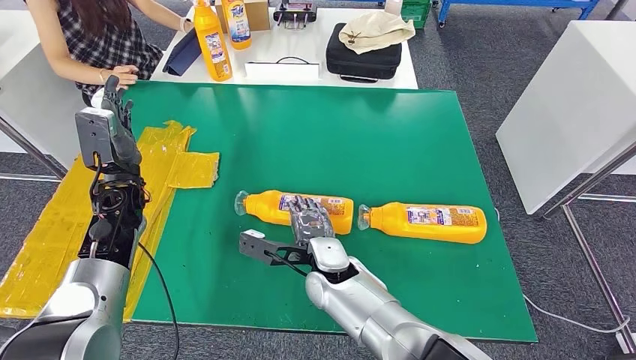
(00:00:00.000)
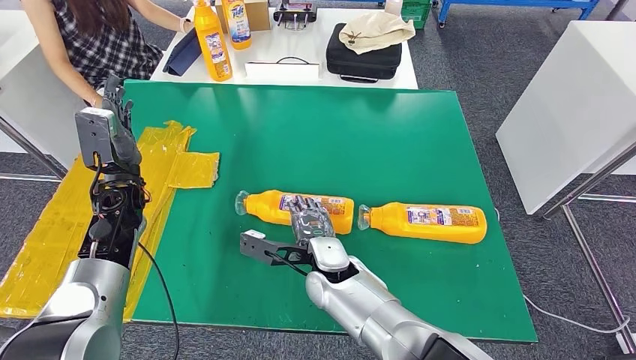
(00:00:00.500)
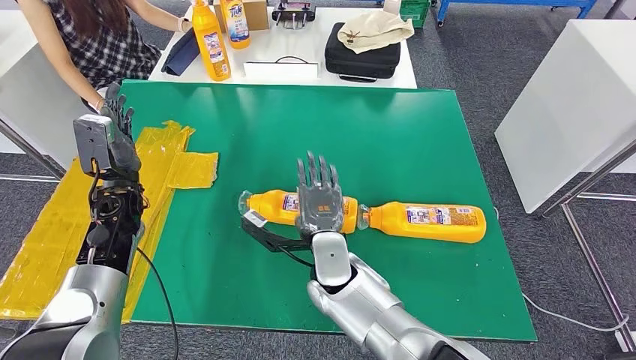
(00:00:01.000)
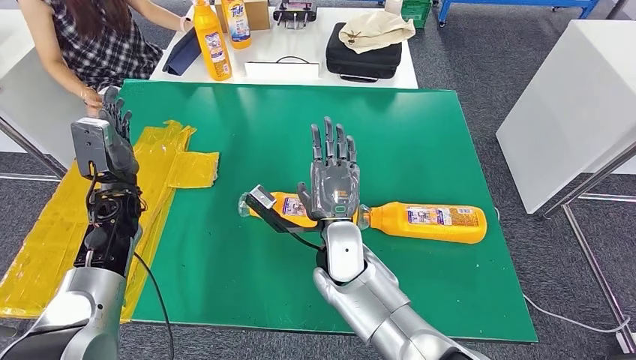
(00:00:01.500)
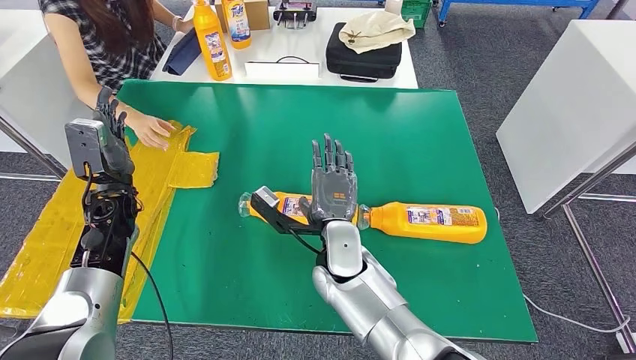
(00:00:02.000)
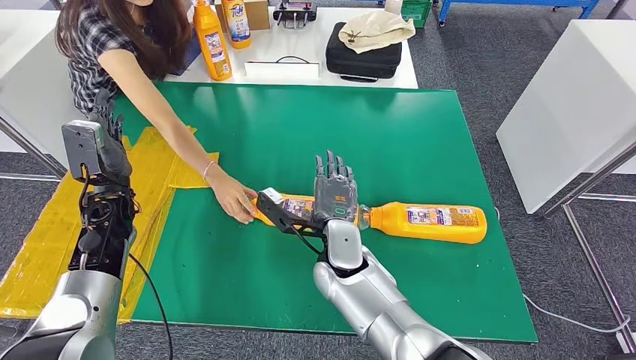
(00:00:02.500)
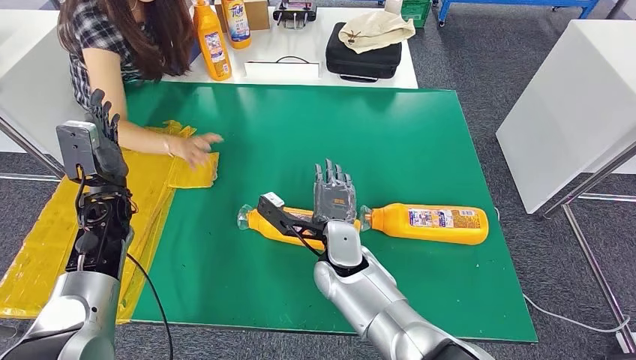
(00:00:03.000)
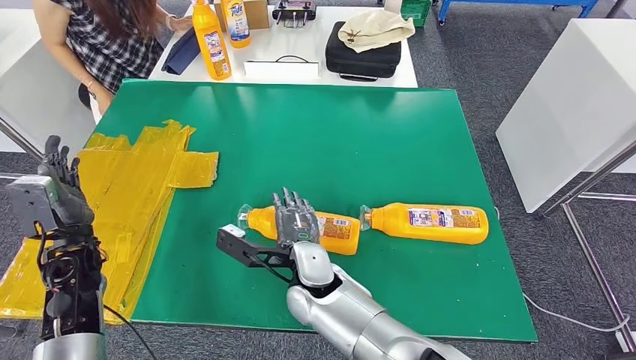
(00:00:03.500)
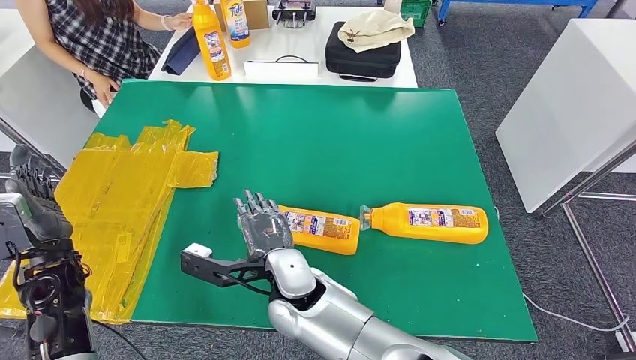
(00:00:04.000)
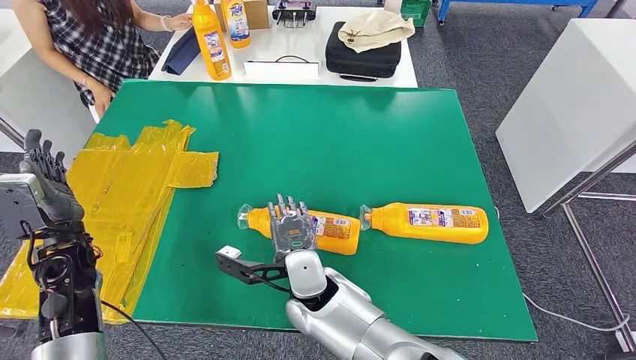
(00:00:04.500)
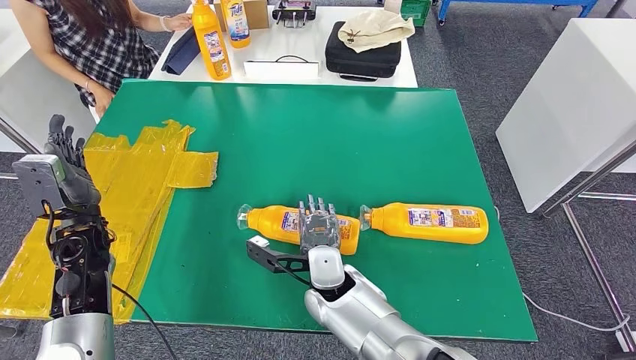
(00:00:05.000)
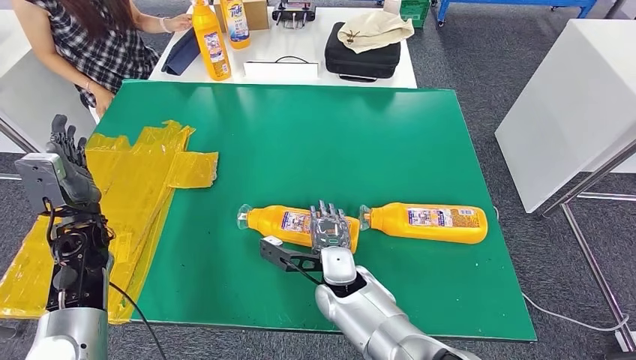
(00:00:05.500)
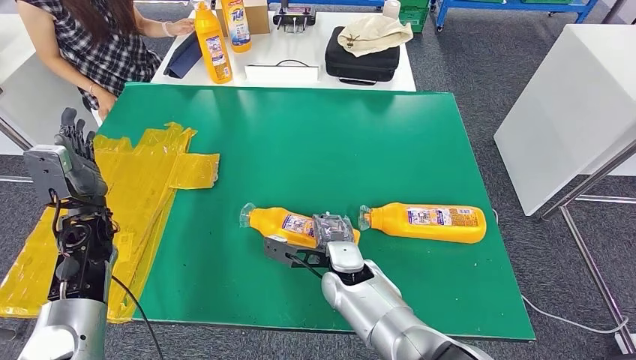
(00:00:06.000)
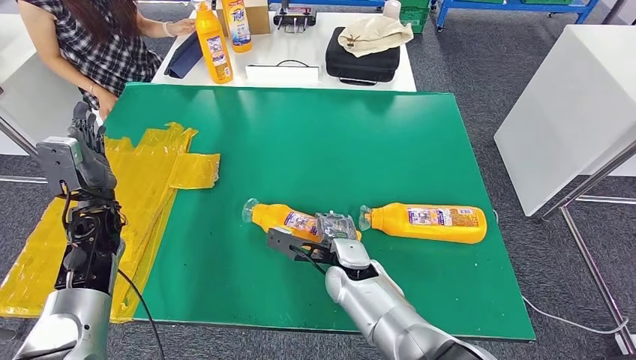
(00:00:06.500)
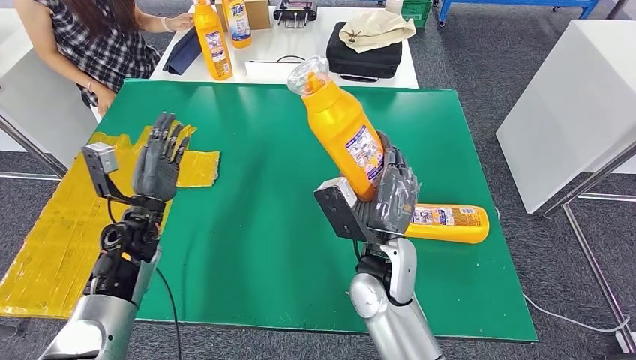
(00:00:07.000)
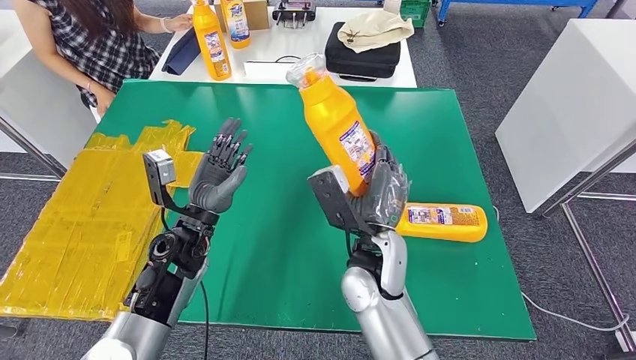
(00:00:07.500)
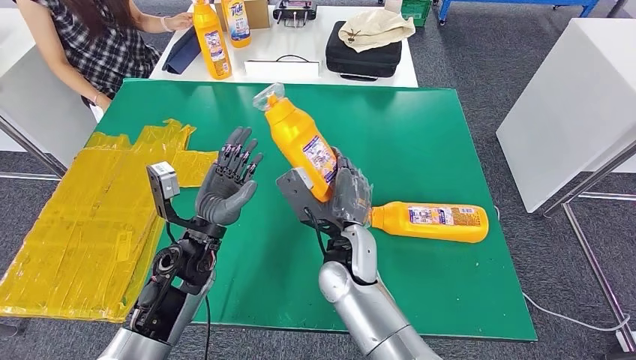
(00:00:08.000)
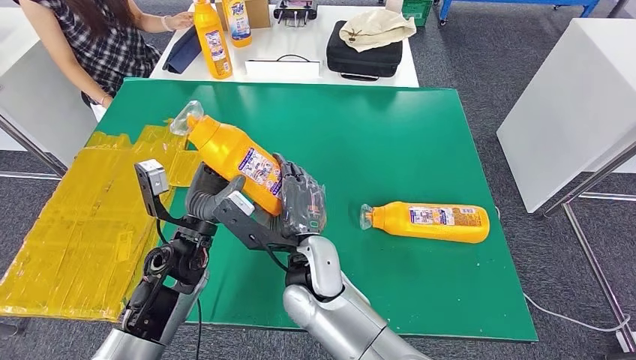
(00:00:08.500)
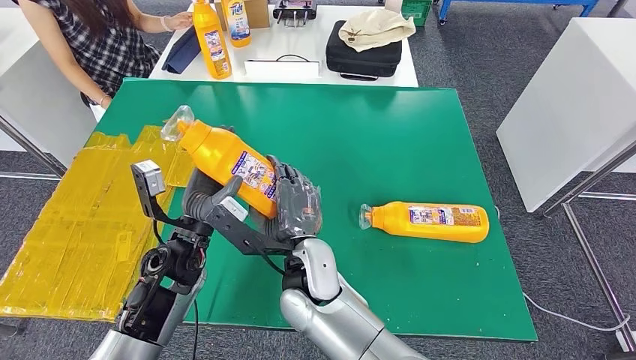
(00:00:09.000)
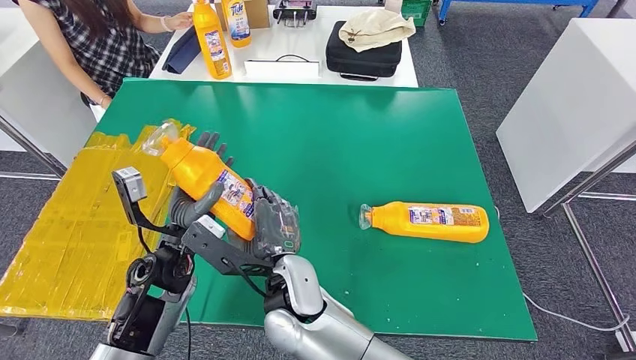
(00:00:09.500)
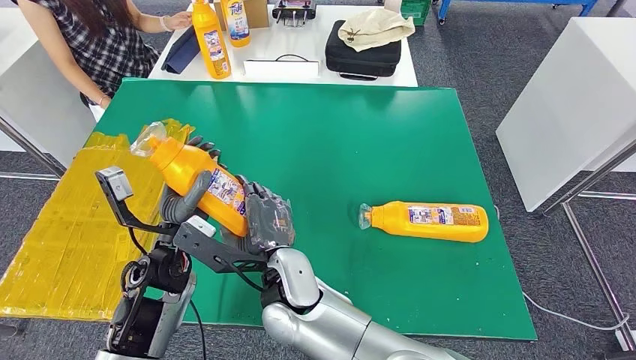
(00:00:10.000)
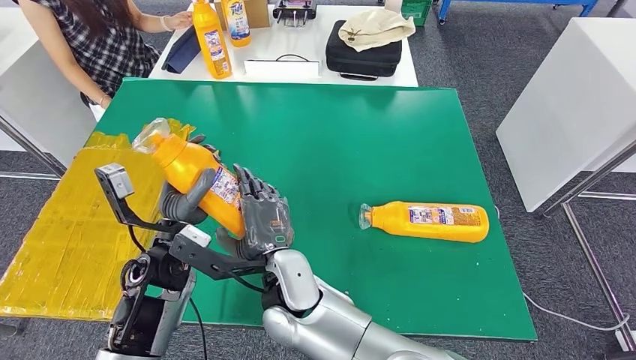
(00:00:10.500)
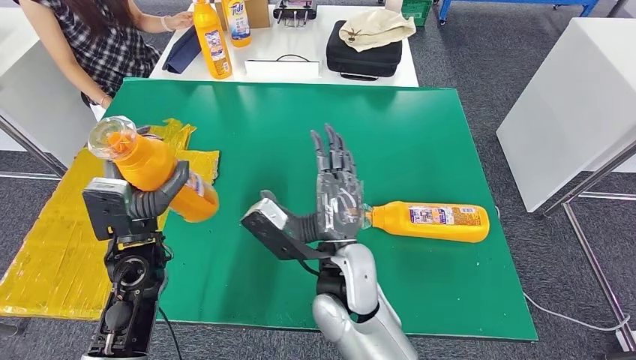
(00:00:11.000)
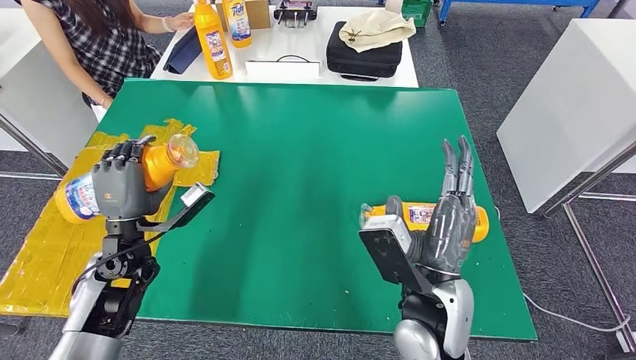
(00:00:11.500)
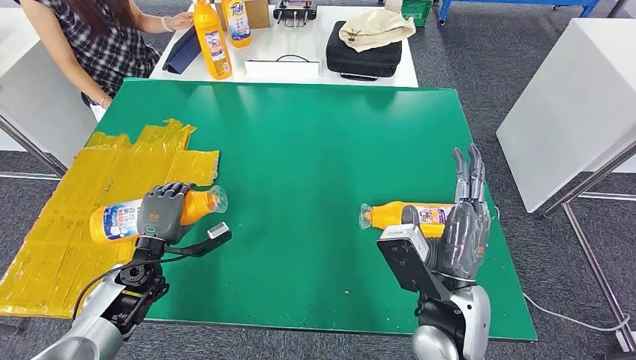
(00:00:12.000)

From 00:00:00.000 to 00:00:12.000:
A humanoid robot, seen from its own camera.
Step, from 00:00:02.500 to 00:00:07.000: Pick up the fast-moving consumer goods bottle from the table.
From 00:00:08.000 to 00:00:10.000: The right hand shifts about 10 cm to the left and backward.

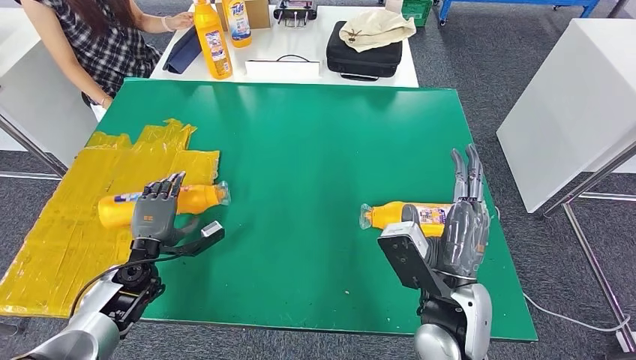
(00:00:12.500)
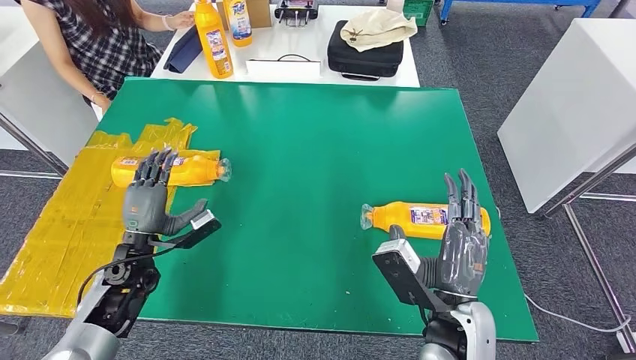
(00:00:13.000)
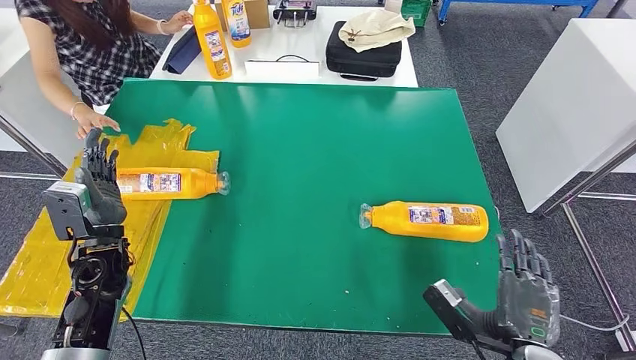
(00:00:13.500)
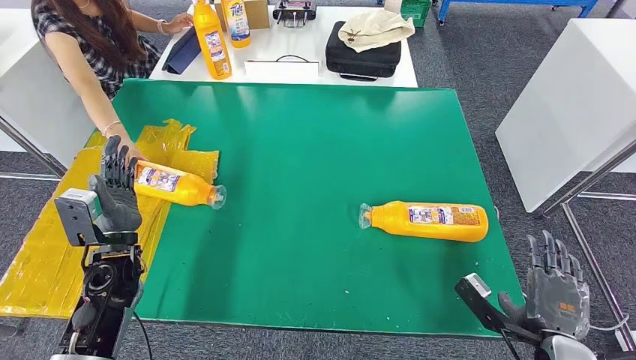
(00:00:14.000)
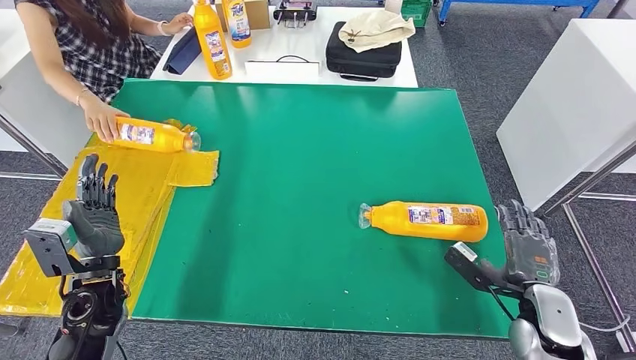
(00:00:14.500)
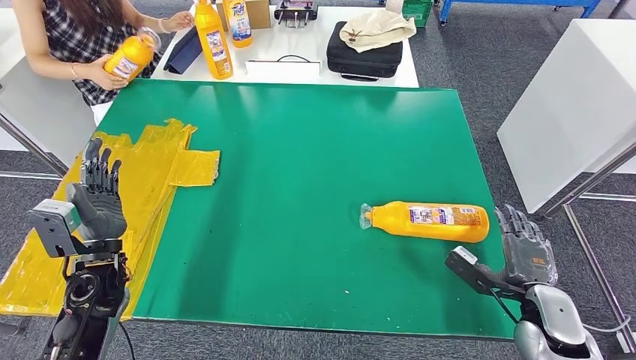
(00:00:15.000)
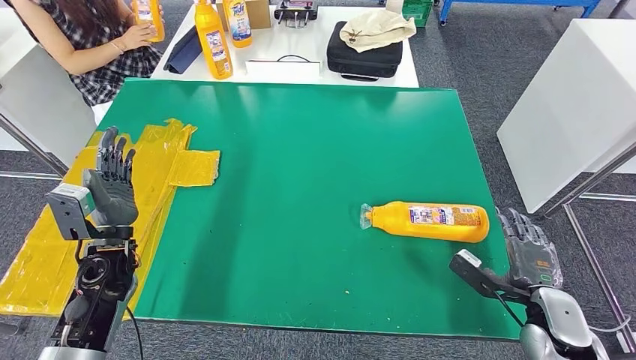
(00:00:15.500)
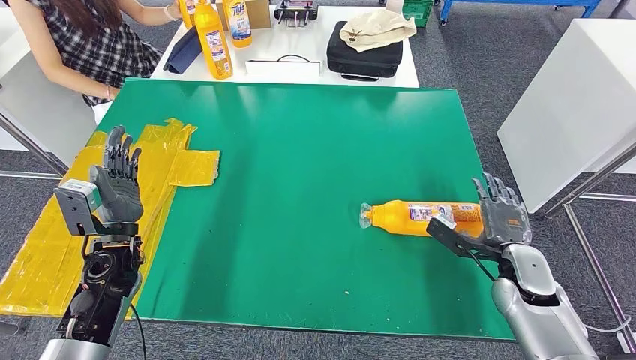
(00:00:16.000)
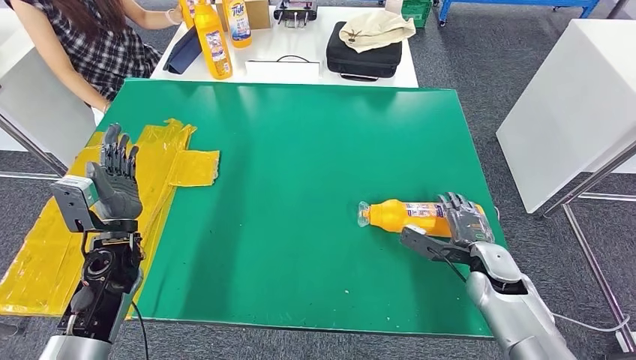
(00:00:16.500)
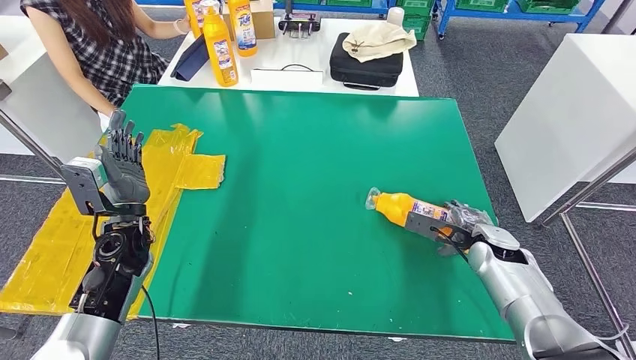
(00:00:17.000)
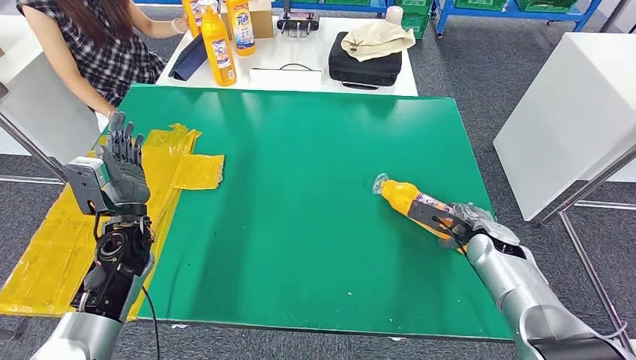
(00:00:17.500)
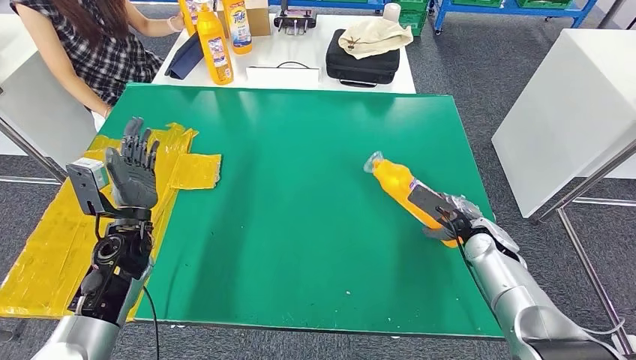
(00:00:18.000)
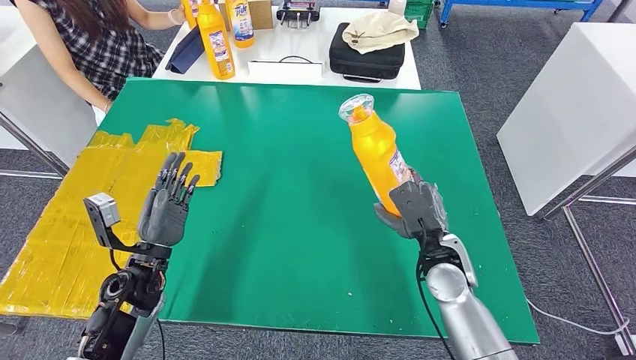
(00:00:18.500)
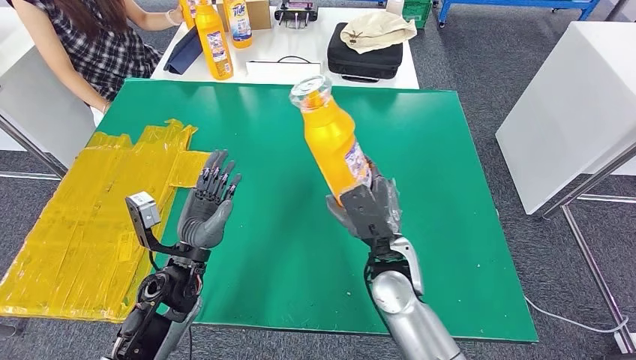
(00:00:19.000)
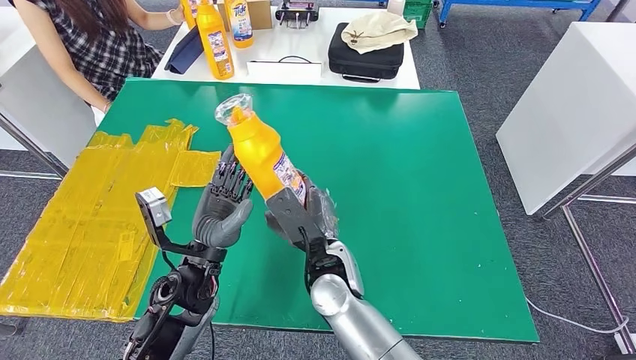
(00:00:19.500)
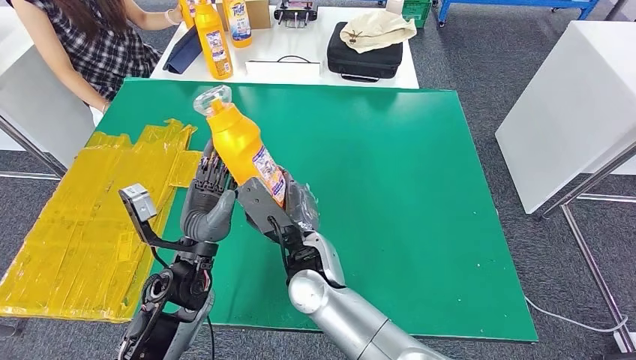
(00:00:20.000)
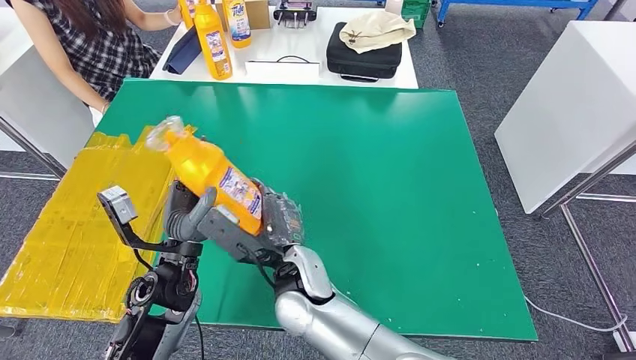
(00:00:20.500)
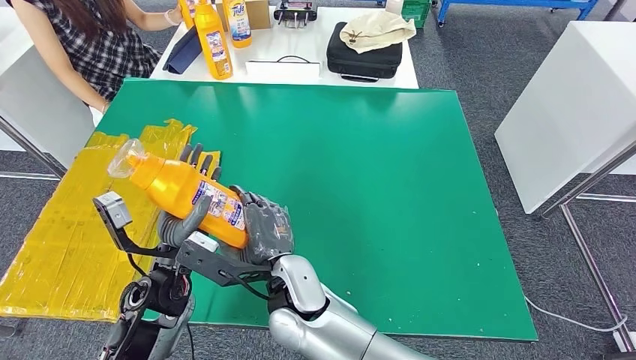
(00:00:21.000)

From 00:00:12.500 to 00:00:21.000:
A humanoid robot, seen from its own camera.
Step, from 00:00:17.000 to 00:00:18.000: Pick up the fast-moving consumer goods bottle from the table.
From 00:00:14.500 to 00:00:16.500: Both hands move forward, approximately 5 cm.
From 00:00:19.000 to 00:00:21.000: The right hand moves to the left, some 15 cm.
